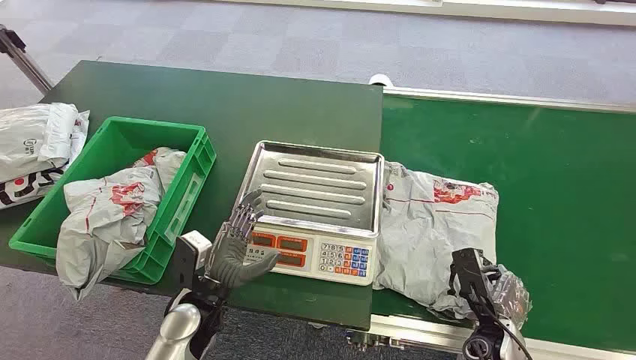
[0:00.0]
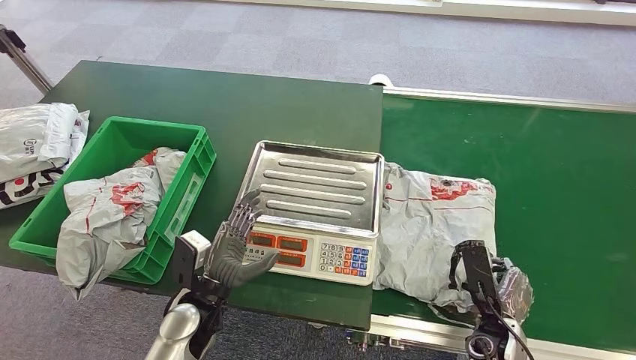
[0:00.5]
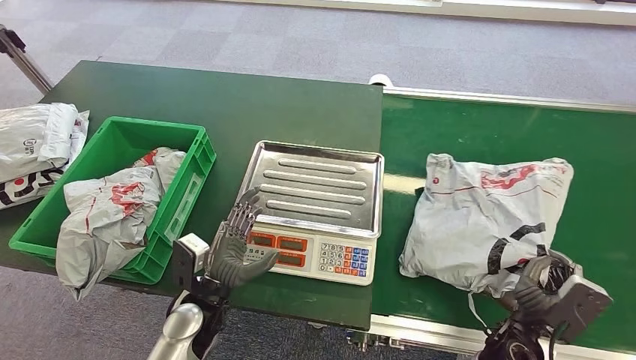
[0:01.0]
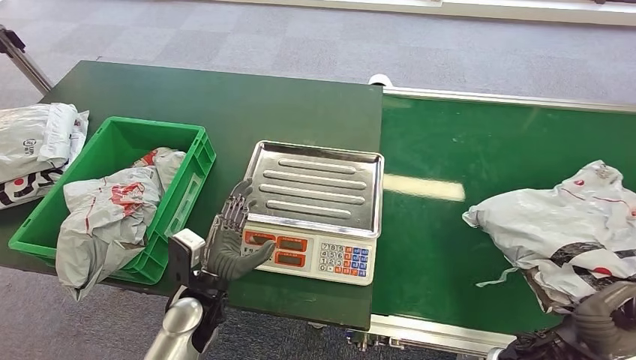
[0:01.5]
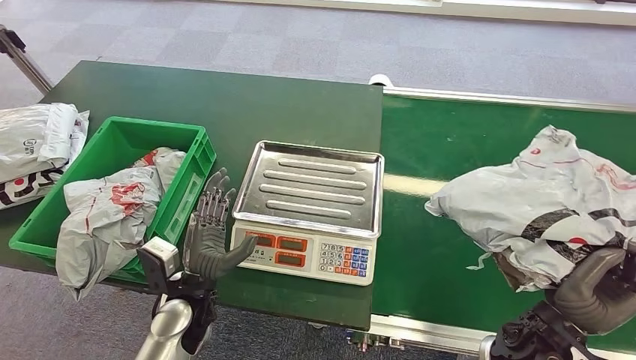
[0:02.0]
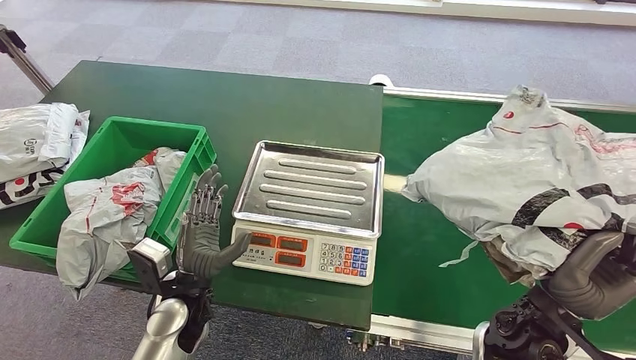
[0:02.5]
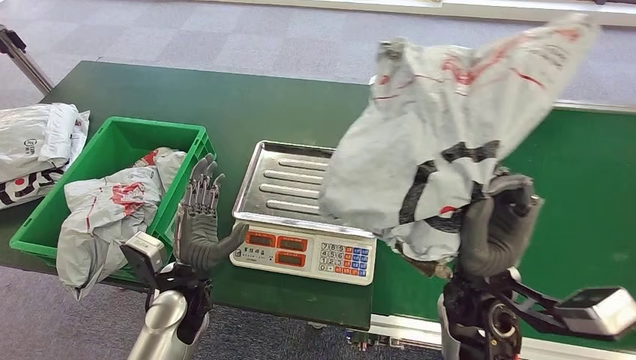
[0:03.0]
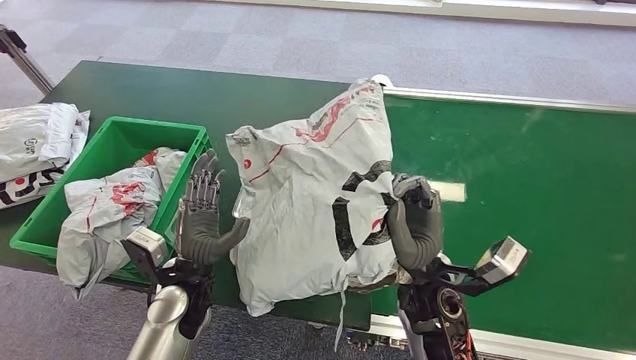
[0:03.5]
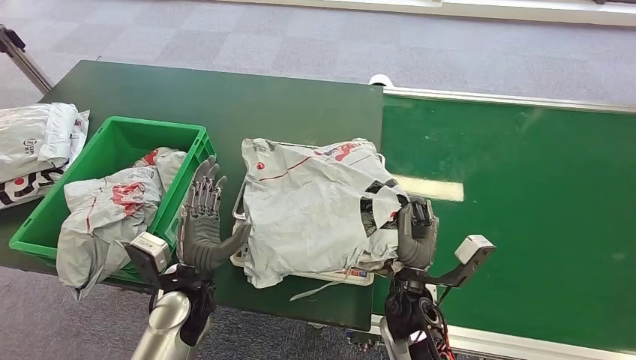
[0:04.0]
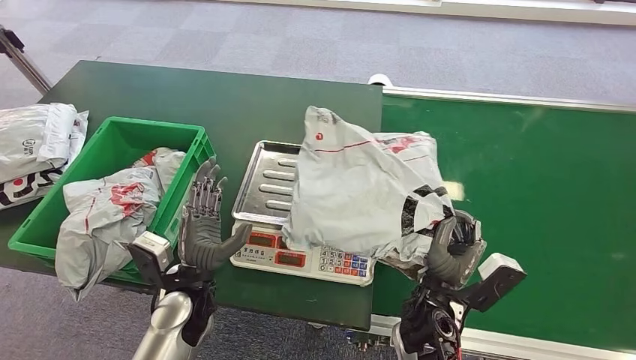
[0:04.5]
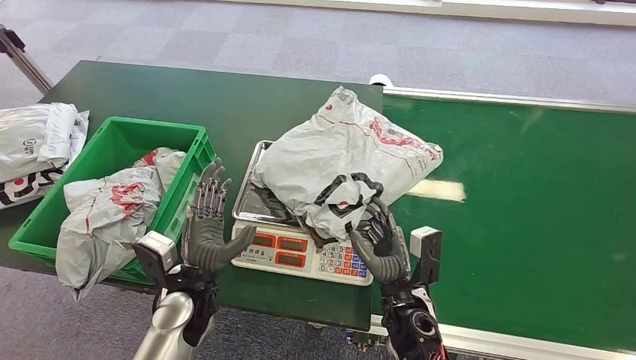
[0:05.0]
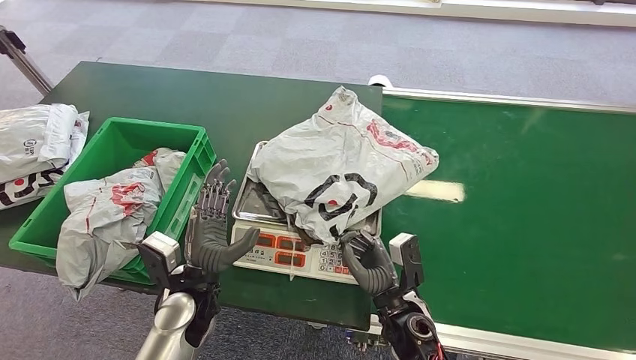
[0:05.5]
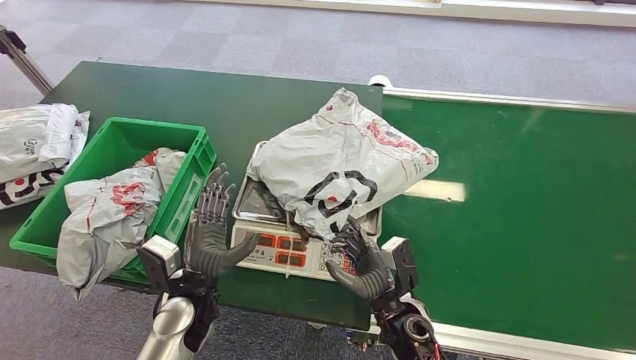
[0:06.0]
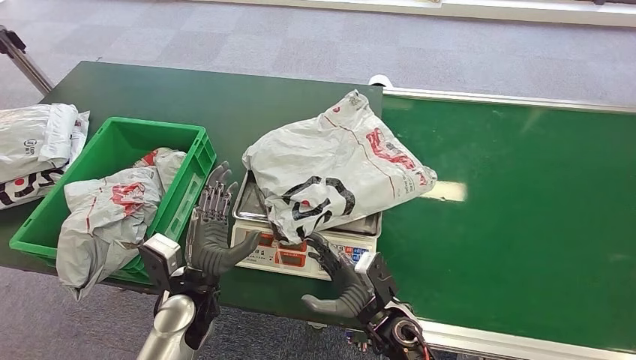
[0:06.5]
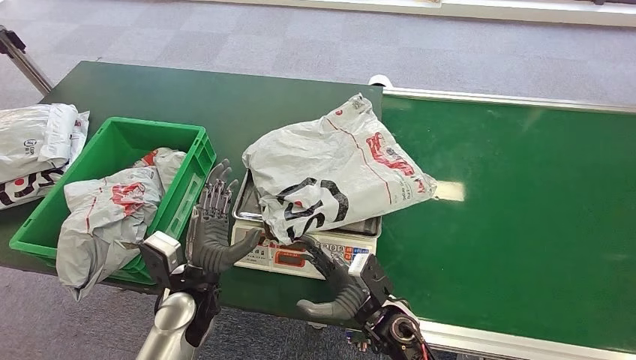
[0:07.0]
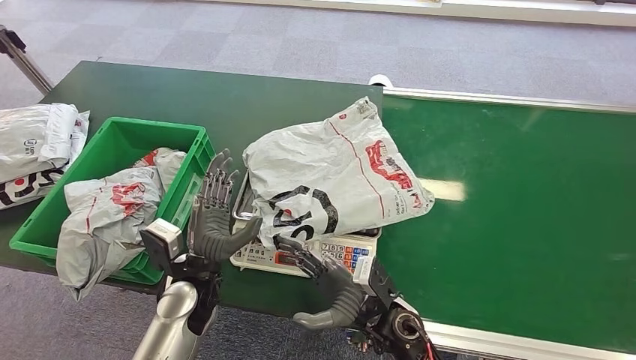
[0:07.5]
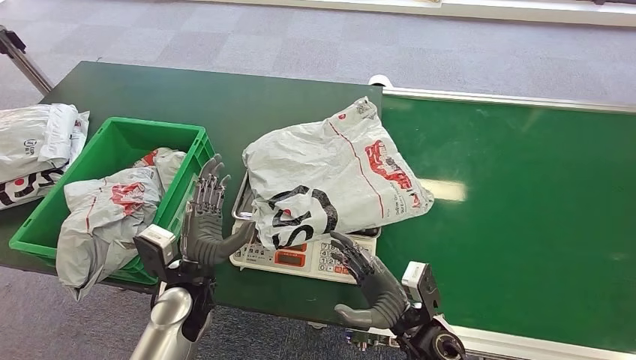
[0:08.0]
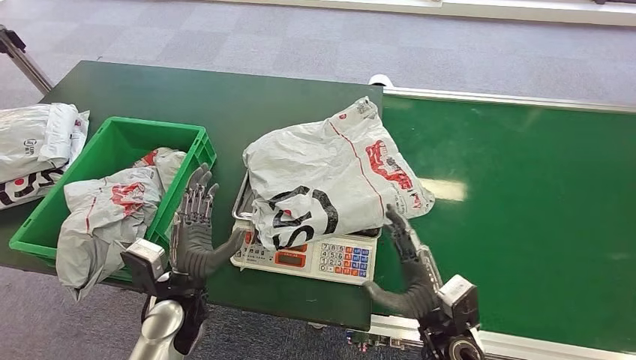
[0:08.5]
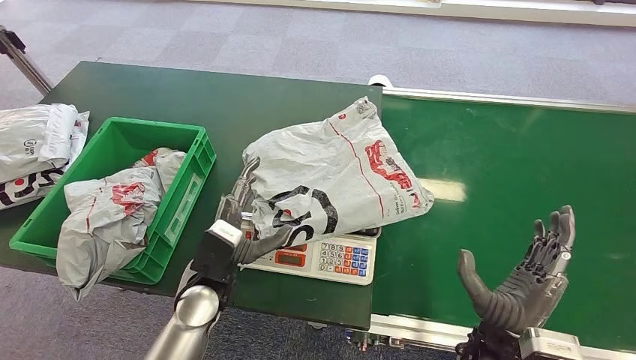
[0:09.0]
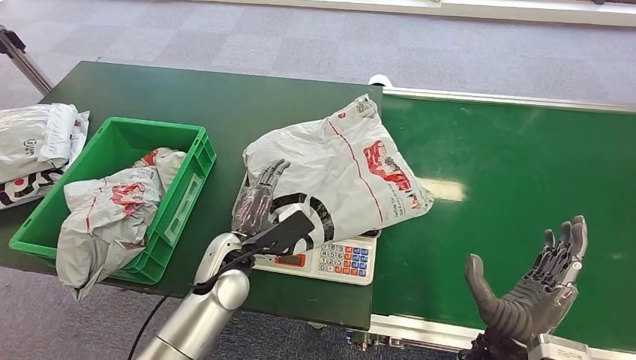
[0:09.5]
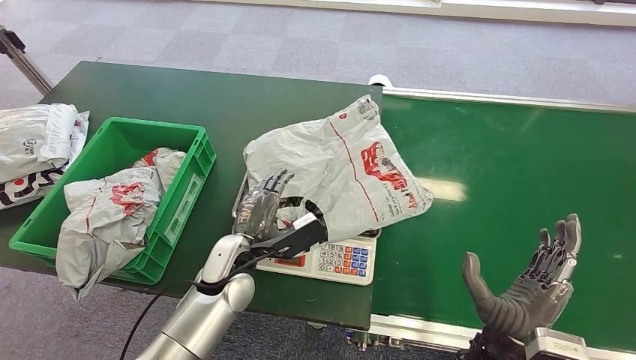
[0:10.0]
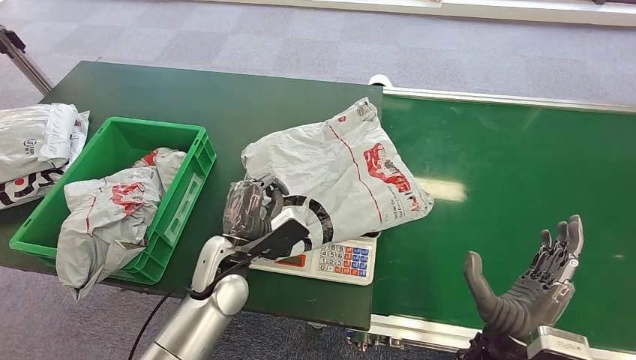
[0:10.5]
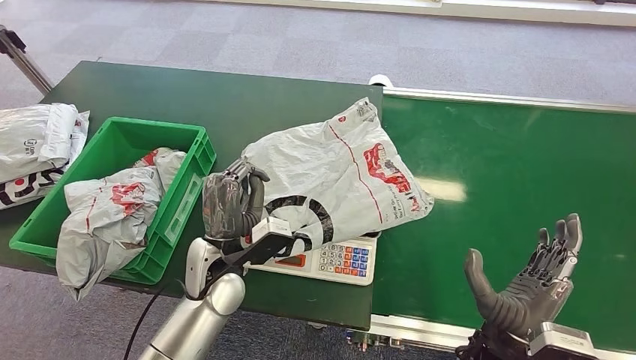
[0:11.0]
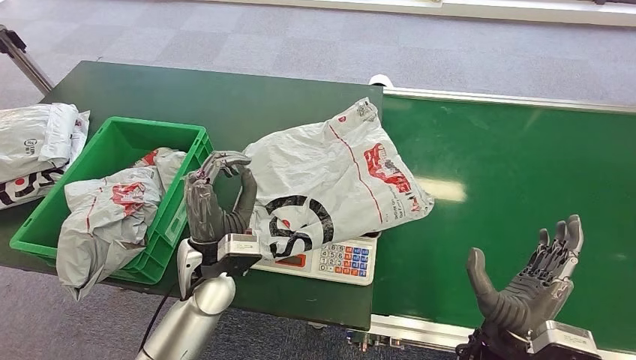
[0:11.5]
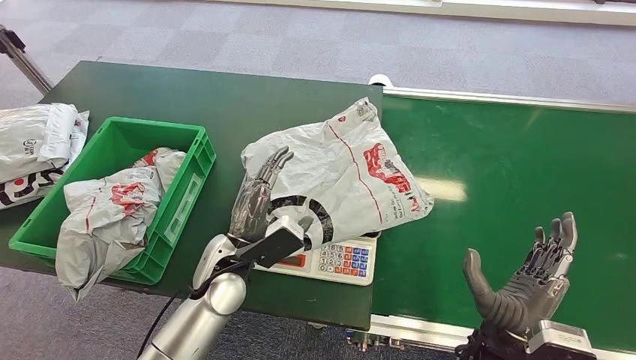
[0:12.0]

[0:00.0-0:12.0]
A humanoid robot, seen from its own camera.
Task of the whole recording: Weigh the package on the weighing device and place it in the left basket.
Step, 0:00.0 to 0:02.0: Pick up the package from the conveyor belt.
Step, 0:03.0 to 0:07.0: Place the package onto the inbound machine.
0:04.0 to 0:06.0: The right hand moves roughly 5 cm.
0:08.0 to 0:10.0: The left hand goes some 5 cm to the right and forward; the right hand heads upward and to the right, covering roughly 10 cm.

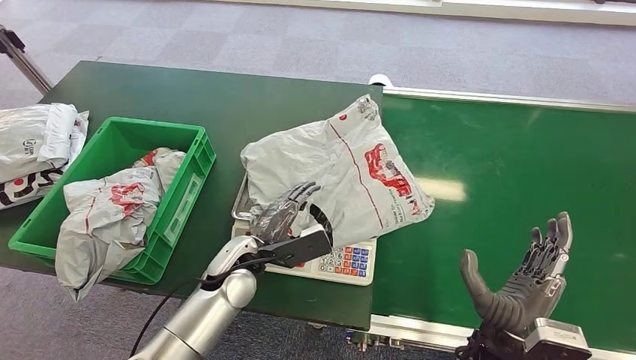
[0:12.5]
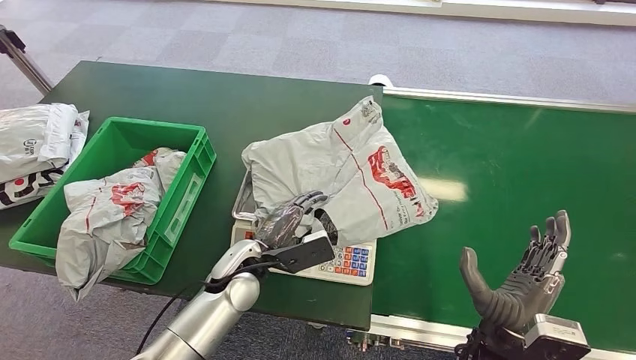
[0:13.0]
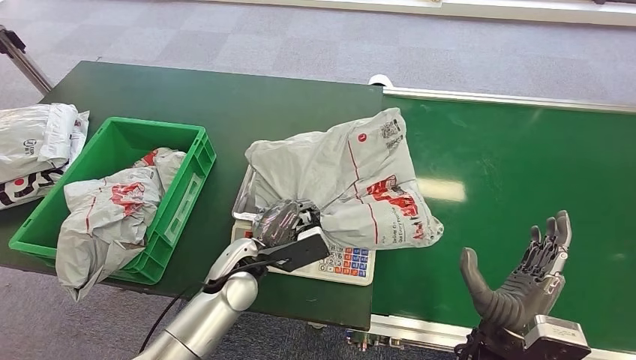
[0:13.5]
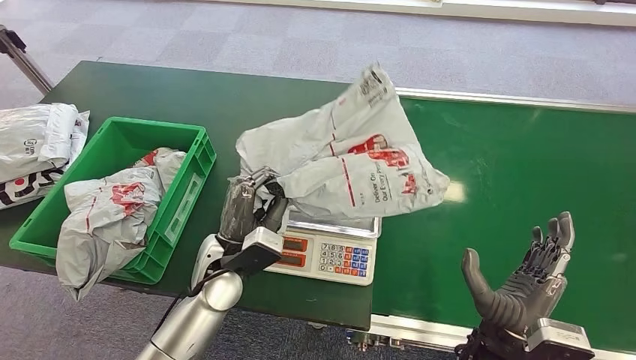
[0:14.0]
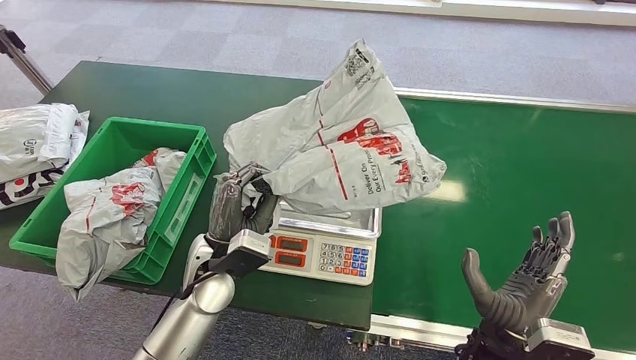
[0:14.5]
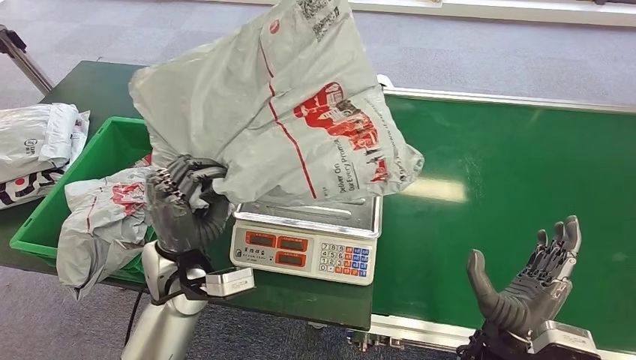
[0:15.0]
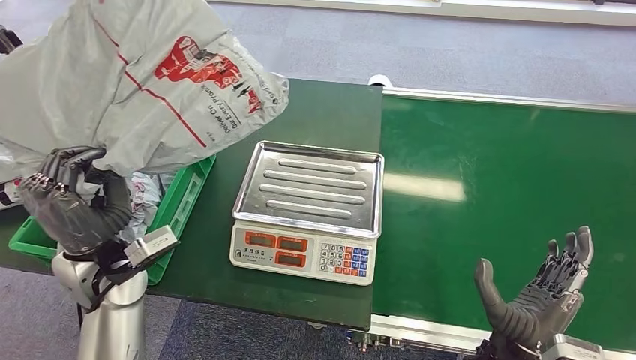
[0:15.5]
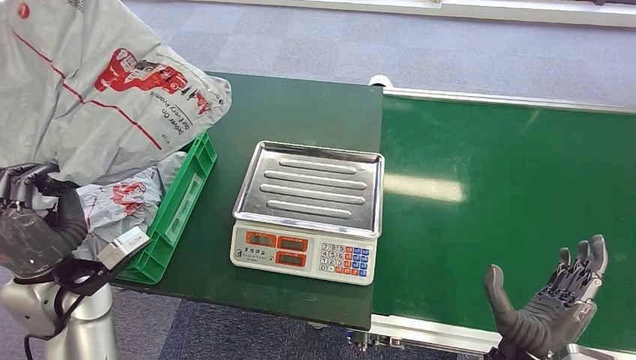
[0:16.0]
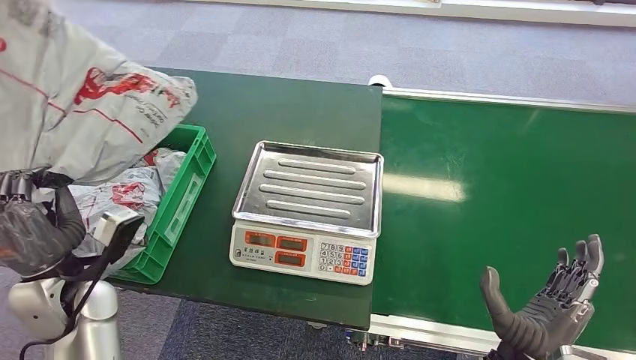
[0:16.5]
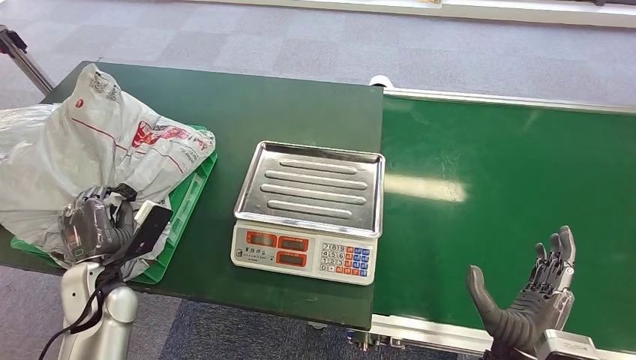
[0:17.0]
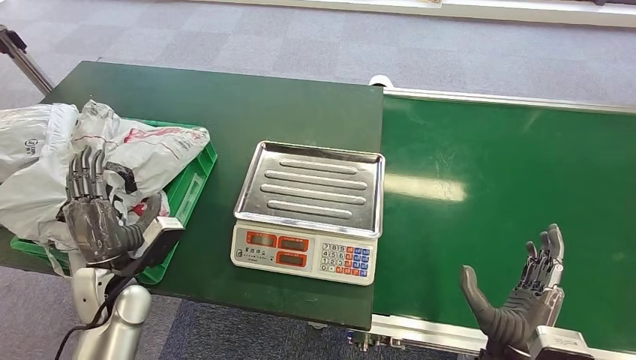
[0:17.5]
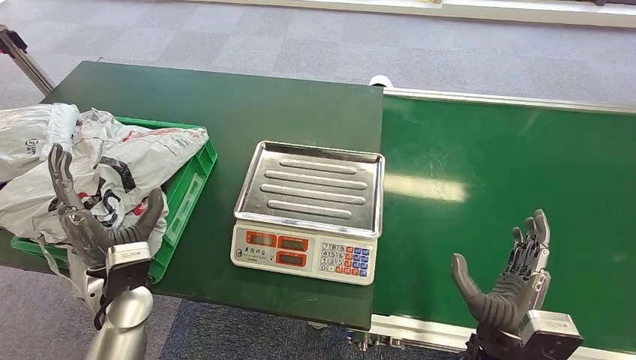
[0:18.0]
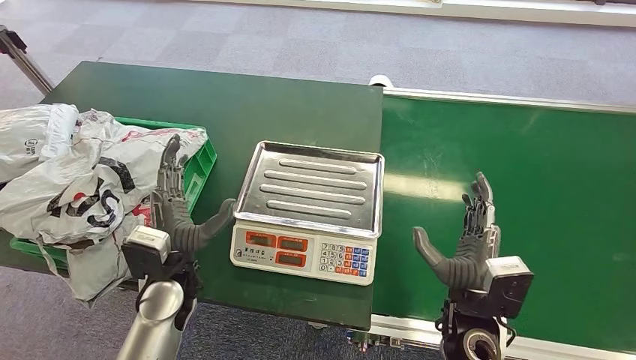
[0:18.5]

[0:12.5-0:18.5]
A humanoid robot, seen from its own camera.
Task of the whole recording: Weigh the package on the weighing device and place it in the left basket.
Step, 0:14.0 to 0:15.5: Pick up the package from the inbound machine.
Step, 0:16.0 to 0:18.5: Place the package into the parcel locker.
0:12.5 to 0:14.5: The left hand ends up roughly 5 cm from where it was.
